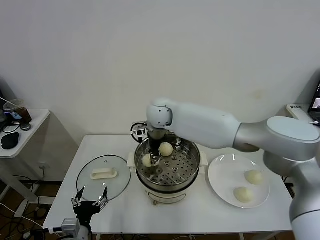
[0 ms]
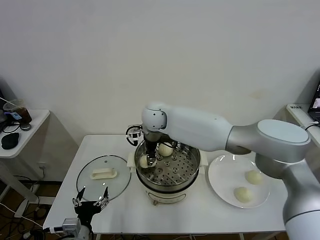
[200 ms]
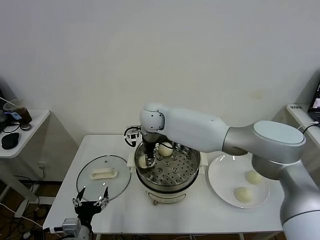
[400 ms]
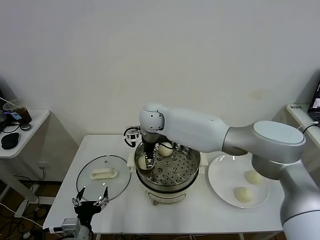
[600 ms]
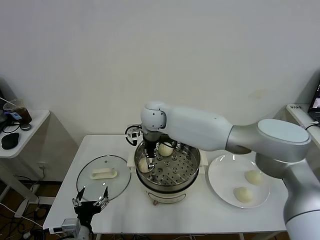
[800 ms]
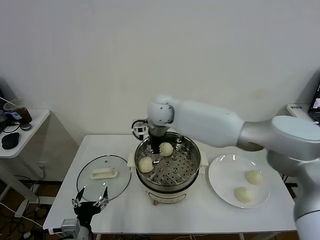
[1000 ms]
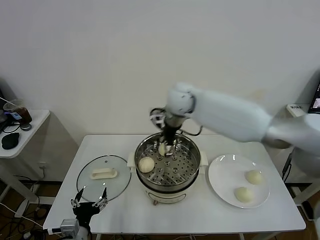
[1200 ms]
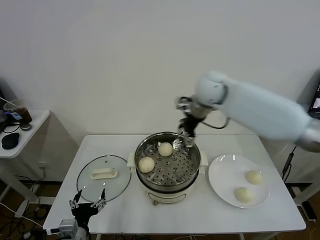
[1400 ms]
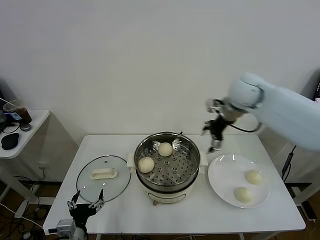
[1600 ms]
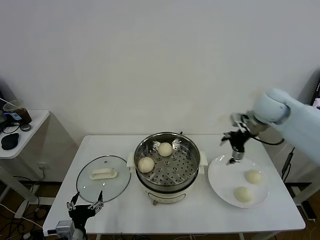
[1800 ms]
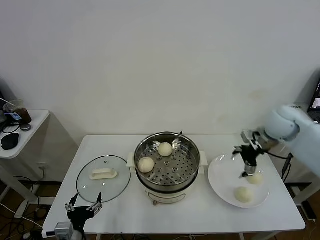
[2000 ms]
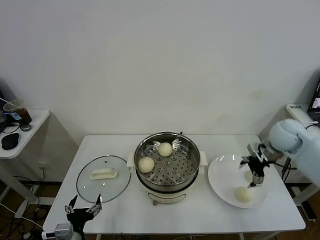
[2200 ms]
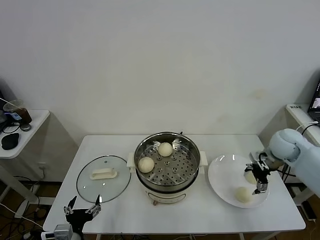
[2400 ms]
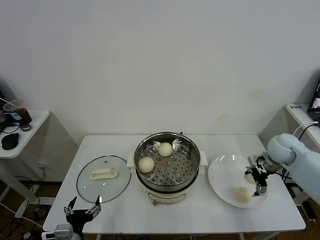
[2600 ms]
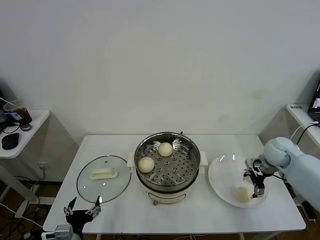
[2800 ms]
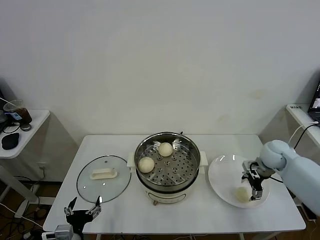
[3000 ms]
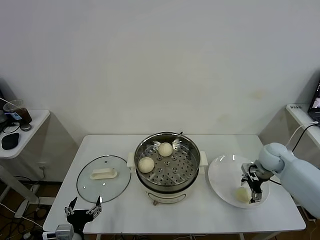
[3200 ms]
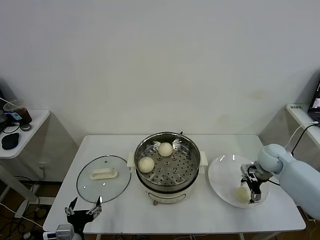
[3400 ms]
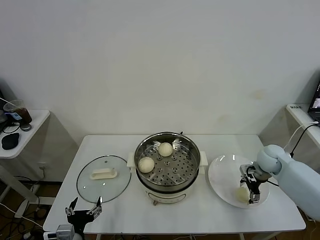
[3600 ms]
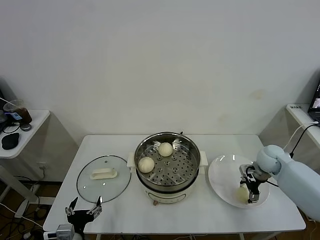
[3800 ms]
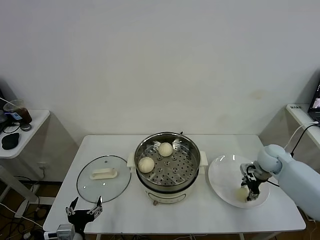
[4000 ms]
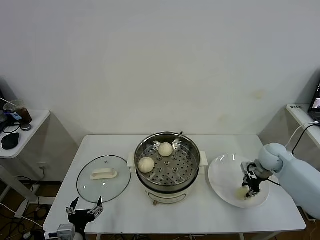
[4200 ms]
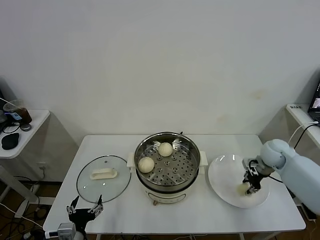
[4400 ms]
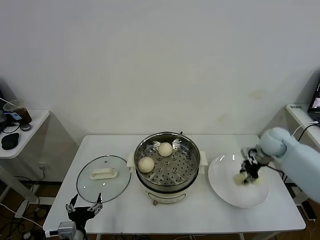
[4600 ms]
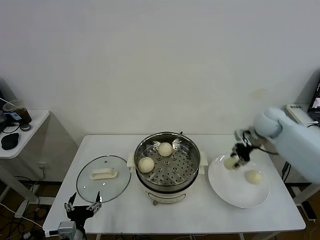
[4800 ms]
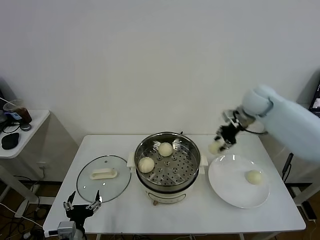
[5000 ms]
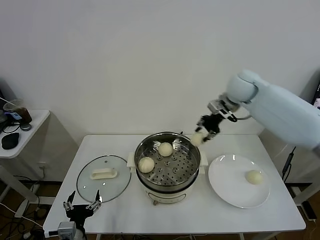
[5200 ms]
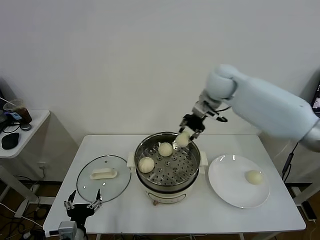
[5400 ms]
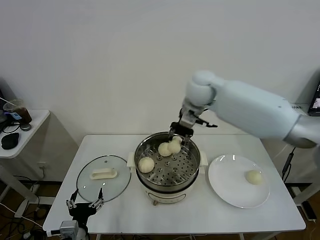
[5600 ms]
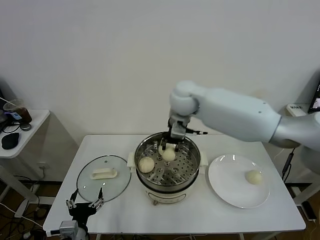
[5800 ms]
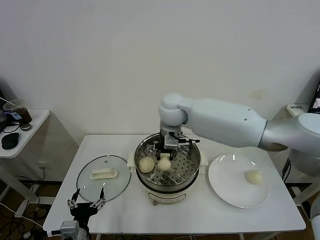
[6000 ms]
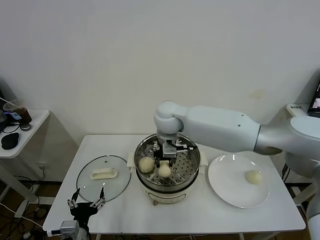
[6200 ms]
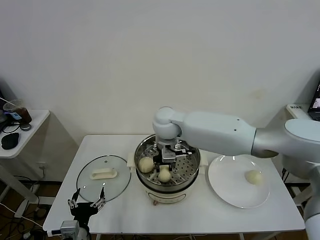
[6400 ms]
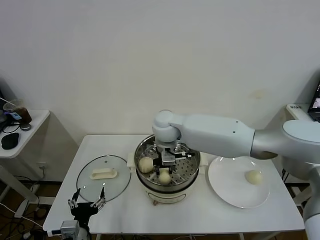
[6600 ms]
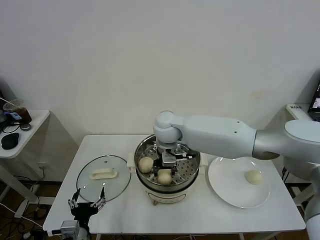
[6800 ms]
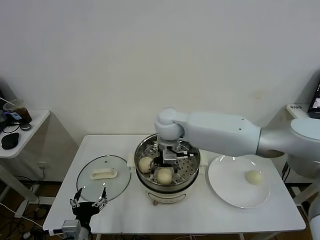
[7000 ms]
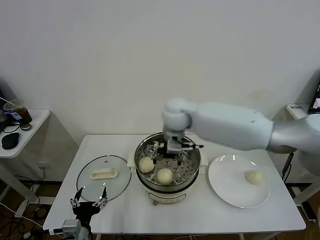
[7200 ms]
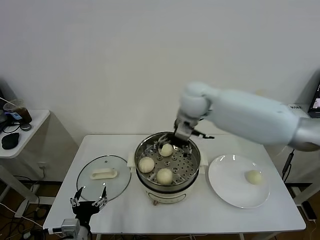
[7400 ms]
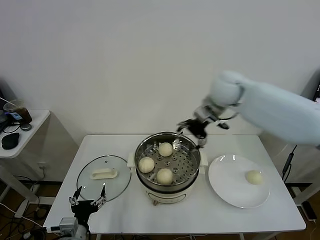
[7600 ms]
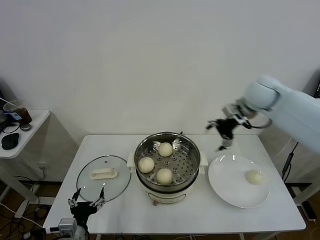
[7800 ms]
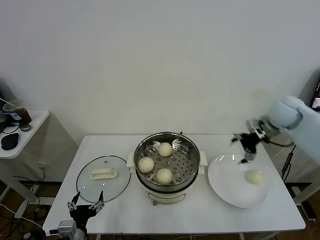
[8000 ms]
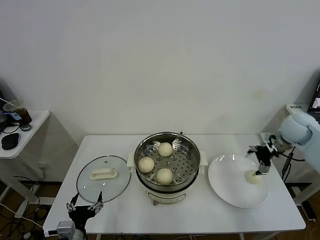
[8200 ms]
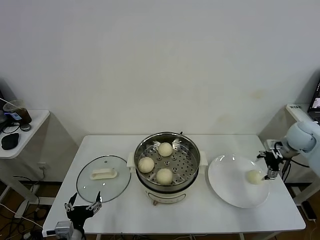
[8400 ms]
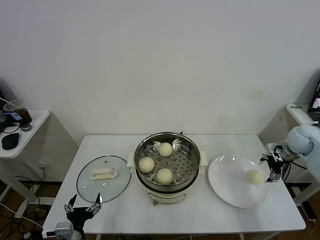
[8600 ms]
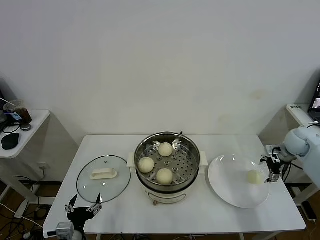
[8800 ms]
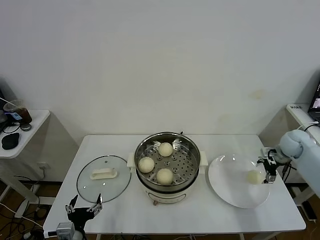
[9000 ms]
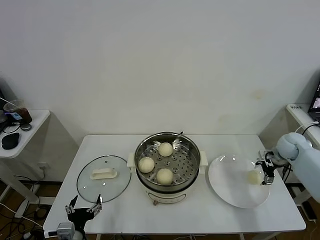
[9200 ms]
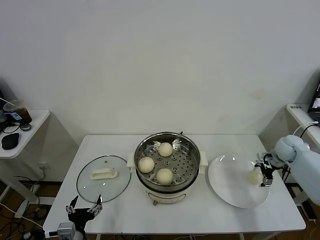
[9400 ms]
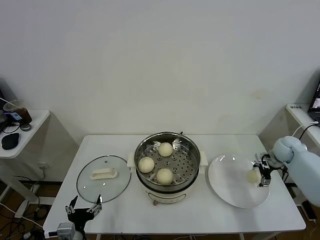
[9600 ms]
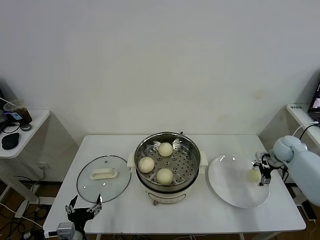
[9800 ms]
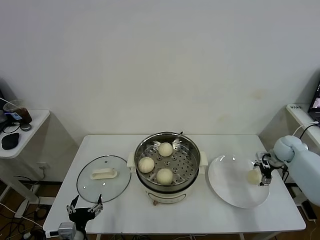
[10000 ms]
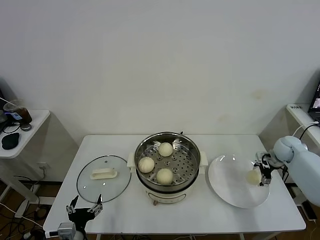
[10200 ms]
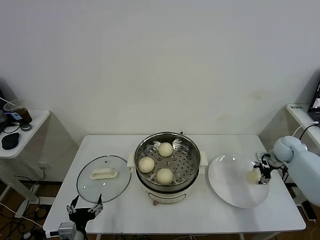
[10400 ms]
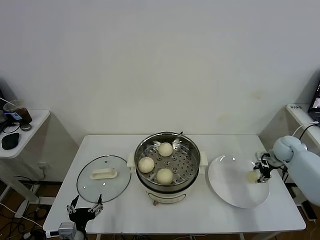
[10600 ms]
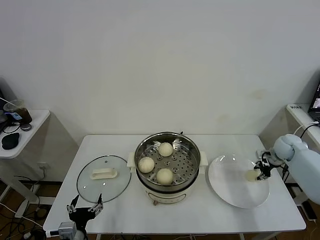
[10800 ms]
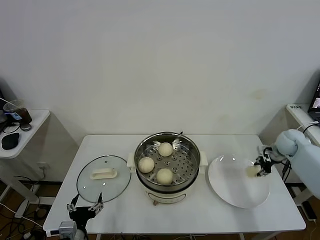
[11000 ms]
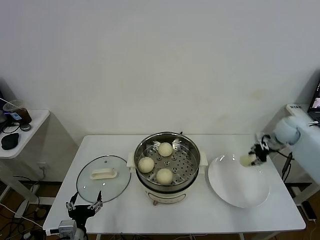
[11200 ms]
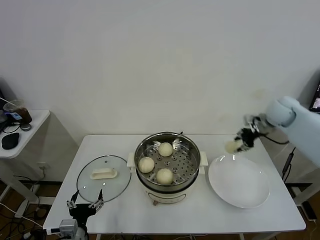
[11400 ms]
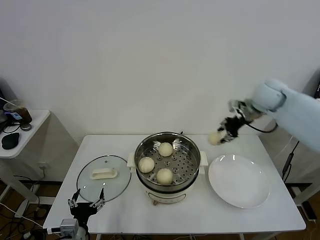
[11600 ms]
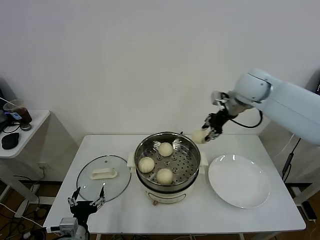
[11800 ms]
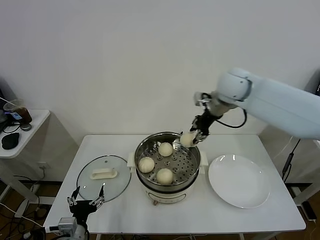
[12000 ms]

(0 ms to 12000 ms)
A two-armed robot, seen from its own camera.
Task of the whole recording: take steamed baozi put them in steamer.
Step, 1000 ms - 4200 ms: Grasp the baozi in the plate with right gripper.
Step, 4400 ms - 7000 ms: Place the baozi on the steamer with right gripper.
Step, 7200 ms - 10800 ms: Grasp the baozi in the plate with right gripper.
0 ms - 1600 ms: The right gripper moves to the right, approximately 30 cm, and opens its fingers.
1600 ms - 3000 ms: The right gripper goes roughly 25 cm downward and to the right.
3000 ms - 4400 ms: The right gripper closes.
4400 ms - 6000 ms: The right gripper moves to the left, some 40 cm.
6000 ms - 7600 ms: The right gripper is displaced to the right by roughly 20 cm, and opens up.
7600 ms - 9000 ms: The right gripper travels to the right and downward by roughly 35 cm.
9000 ms - 10400 ms: The right gripper closes up.
10400 ms - 12000 ms: The right gripper is displaced to the left and upward by approximately 40 cm, and closes up.

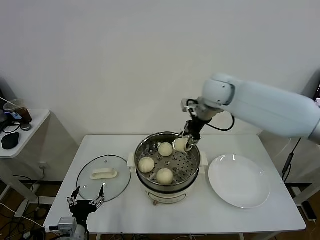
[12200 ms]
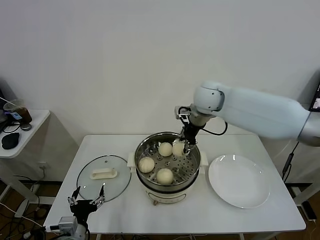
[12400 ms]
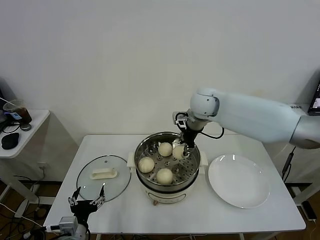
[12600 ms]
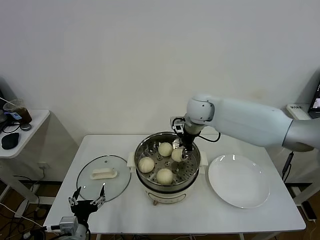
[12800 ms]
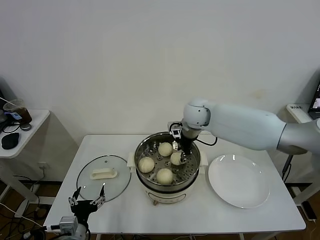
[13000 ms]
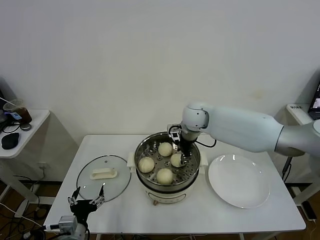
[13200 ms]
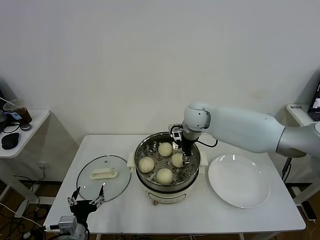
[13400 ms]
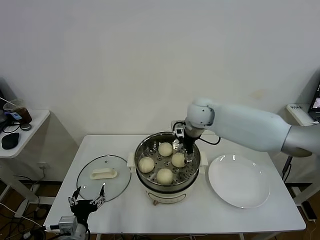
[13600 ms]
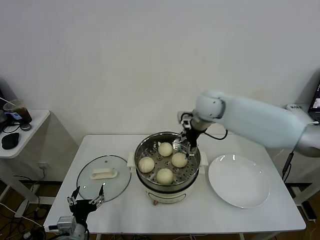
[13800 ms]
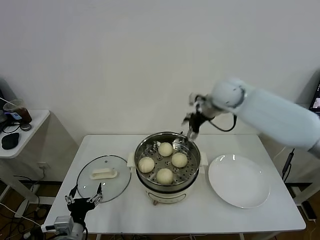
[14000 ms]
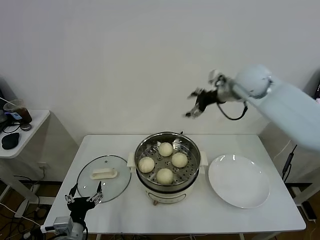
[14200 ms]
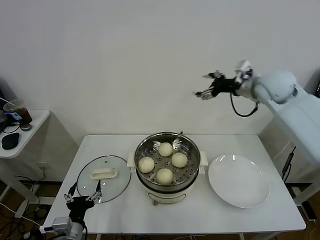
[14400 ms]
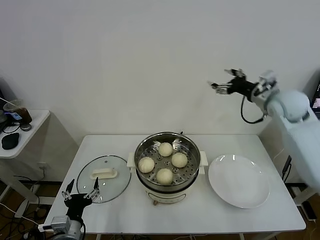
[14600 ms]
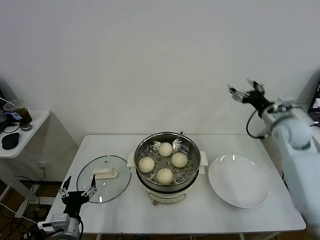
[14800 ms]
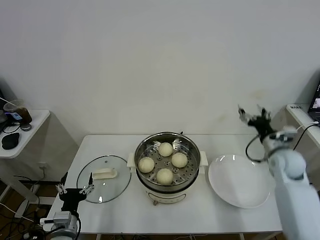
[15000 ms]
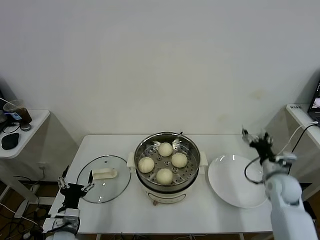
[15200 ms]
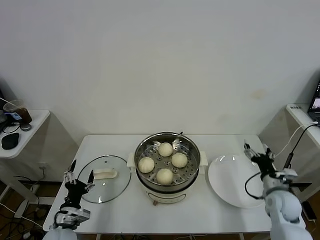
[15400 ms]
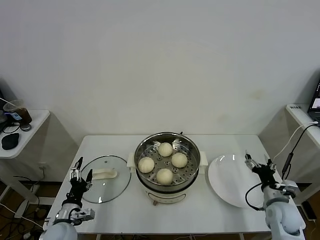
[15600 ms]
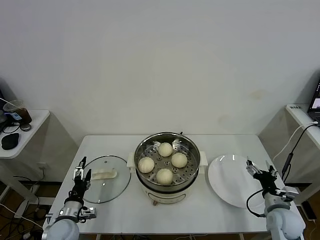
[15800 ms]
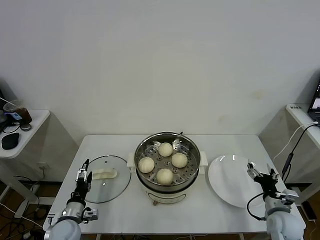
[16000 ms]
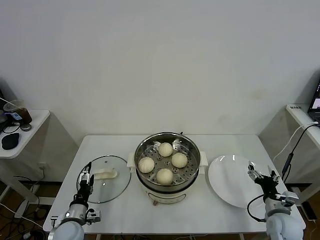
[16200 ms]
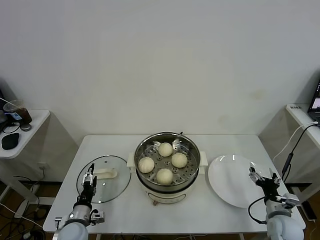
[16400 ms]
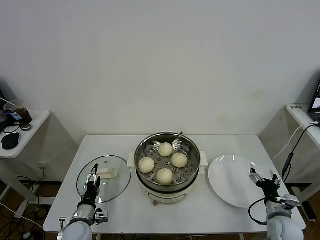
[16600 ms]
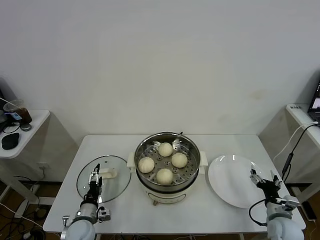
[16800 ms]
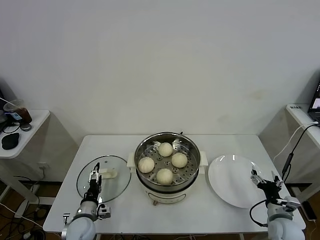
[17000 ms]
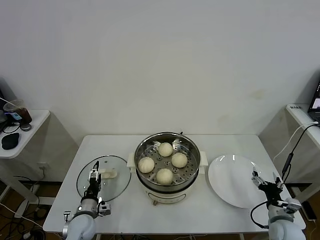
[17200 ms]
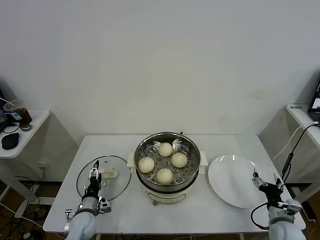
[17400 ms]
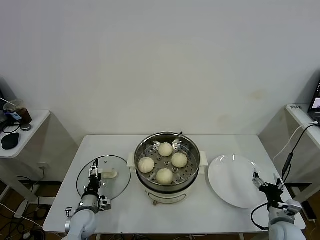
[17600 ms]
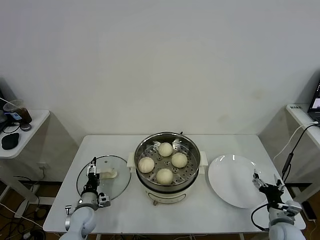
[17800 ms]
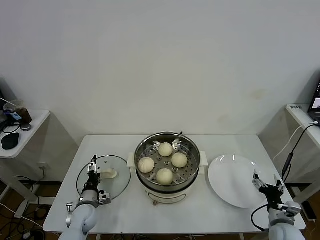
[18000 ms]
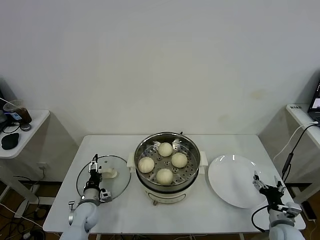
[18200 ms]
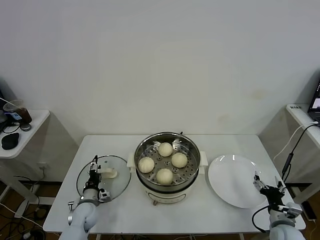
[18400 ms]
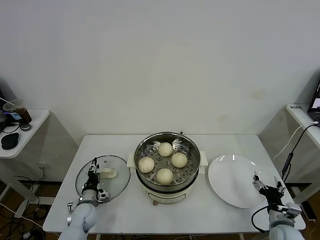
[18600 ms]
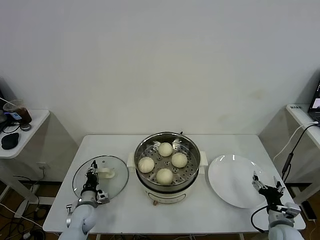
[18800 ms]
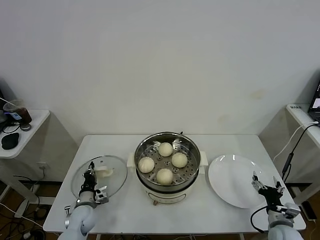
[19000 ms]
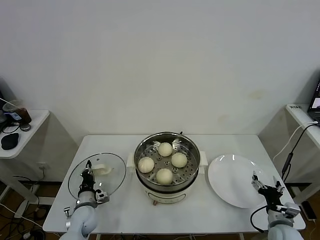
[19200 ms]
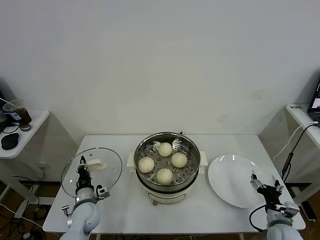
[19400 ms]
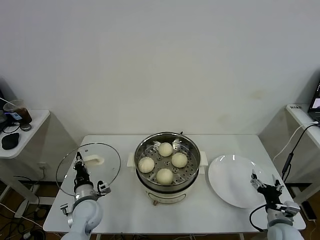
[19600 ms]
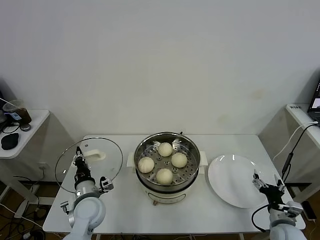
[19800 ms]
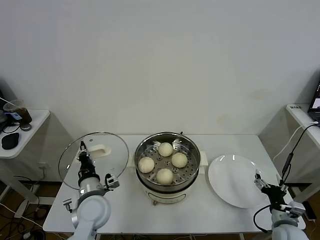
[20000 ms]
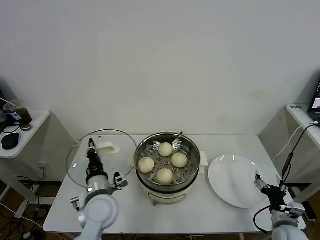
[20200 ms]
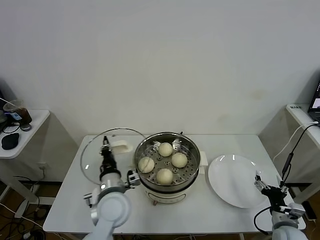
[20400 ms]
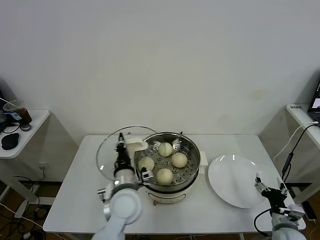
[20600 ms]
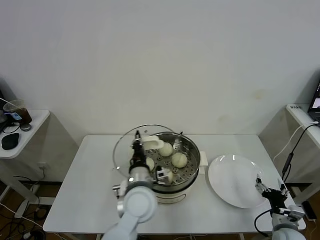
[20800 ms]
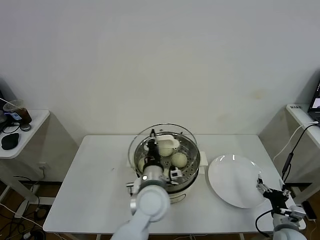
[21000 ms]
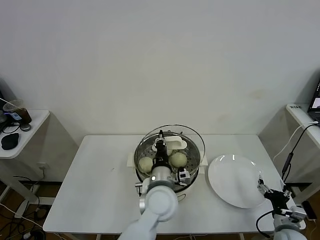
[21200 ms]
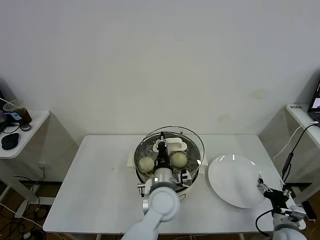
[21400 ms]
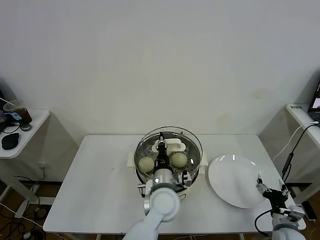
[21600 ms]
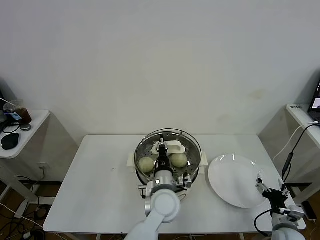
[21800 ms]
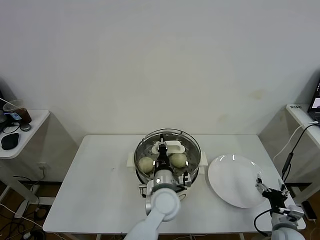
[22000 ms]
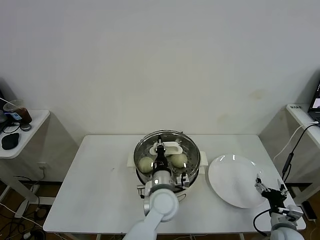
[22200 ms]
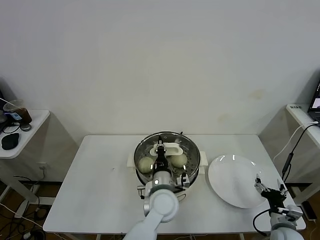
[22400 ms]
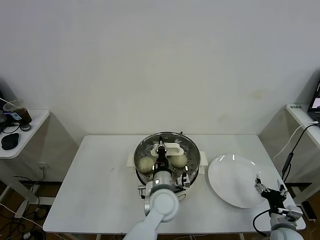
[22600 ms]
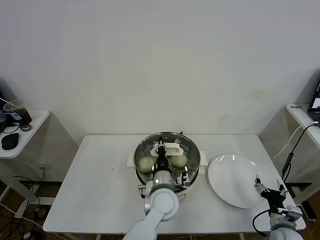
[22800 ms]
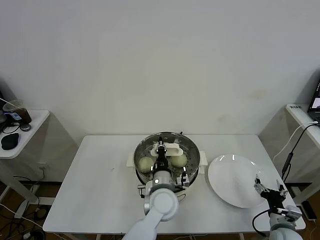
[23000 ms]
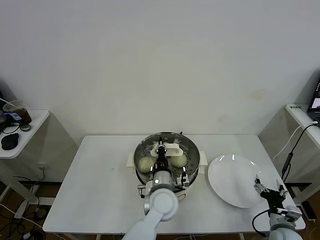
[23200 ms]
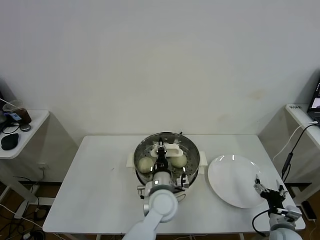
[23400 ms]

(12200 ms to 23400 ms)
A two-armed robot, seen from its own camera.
Task of the whole recording: take steamed baozi put them in steamer.
Step, 12200 ms - 13600 ms: Place the baozi on the steamer with right gripper.
Step, 14000 ms - 19200 ms: Grasp the pot lid with left gripper.
12200 ms - 13800 ms: The right gripper opens up.
13800 ms - 15400 ms: The right gripper goes some 40 cm to the right, downward and backward. Meanwhile the left gripper travels forward and to the left by about 10 cm.
15400 ms - 17000 ms: The left gripper goes roughly 5 cm downward. Meanwhile the right gripper moves backward and downward, some 10 cm.
17000 ms - 18600 ms: The left gripper travels forward by roughly 5 cm, and closes up.
18600 ms - 20200 ms: The left gripper moves upward and to the right, roughly 20 cm, and closes its fingers.
20200 ms - 21800 ms: The left gripper heads to the right, covering approximately 20 cm.
21800 ms - 23400 ms: There are only small adjustments of the grippers.
